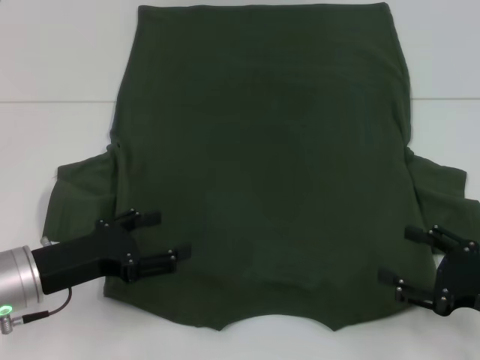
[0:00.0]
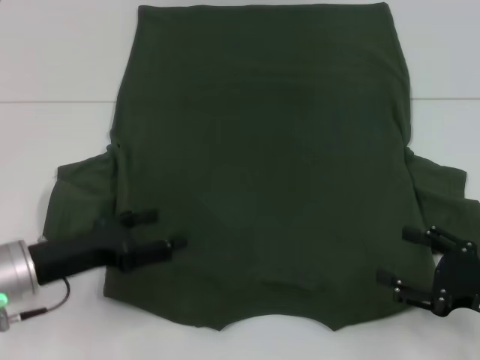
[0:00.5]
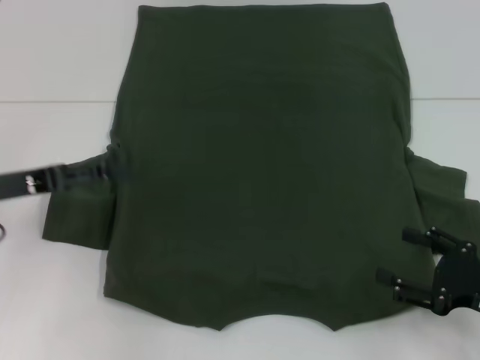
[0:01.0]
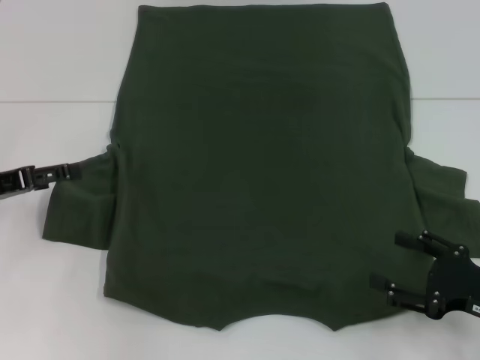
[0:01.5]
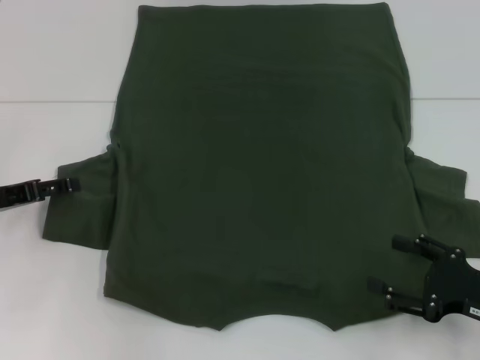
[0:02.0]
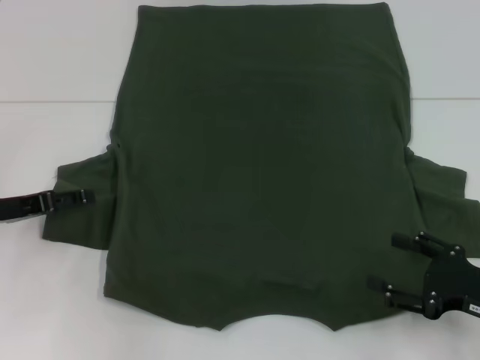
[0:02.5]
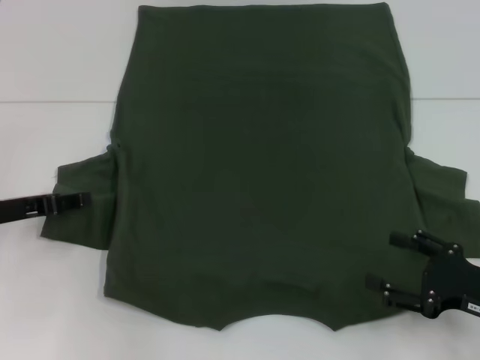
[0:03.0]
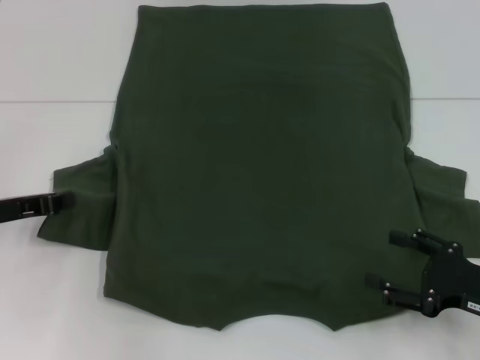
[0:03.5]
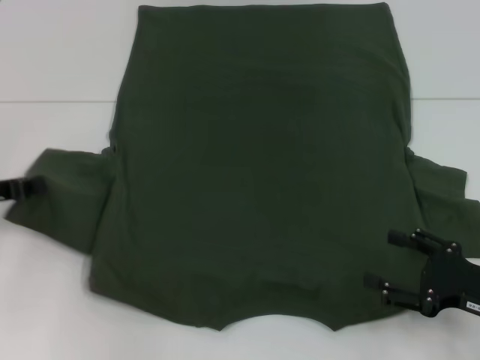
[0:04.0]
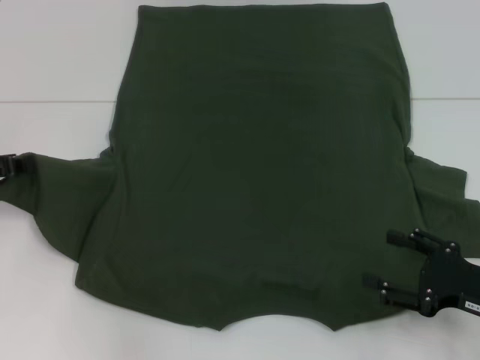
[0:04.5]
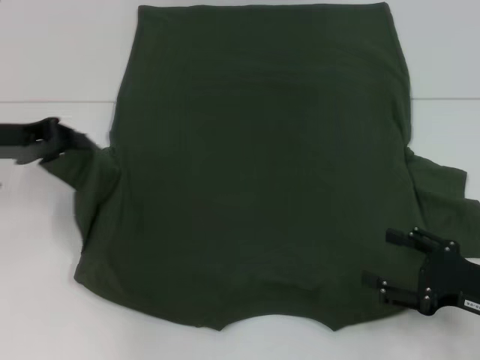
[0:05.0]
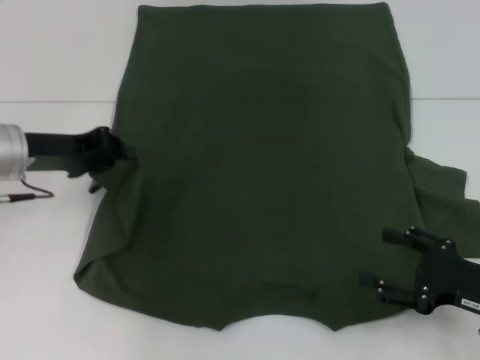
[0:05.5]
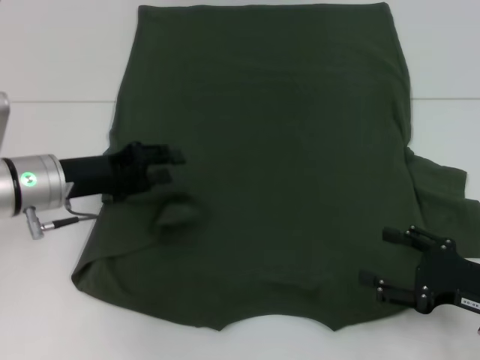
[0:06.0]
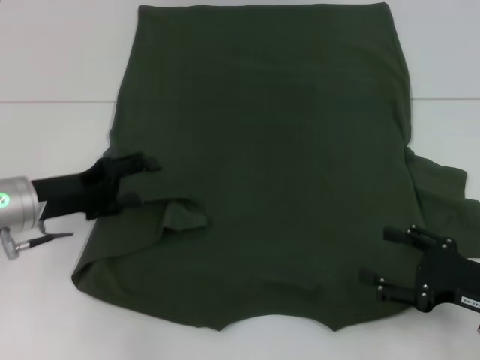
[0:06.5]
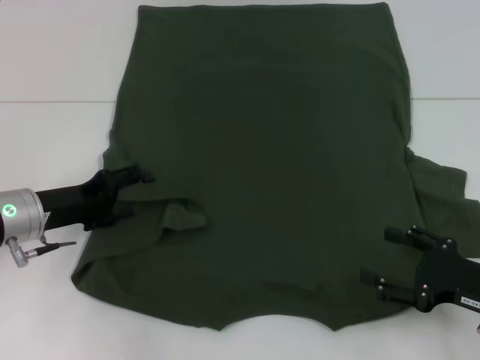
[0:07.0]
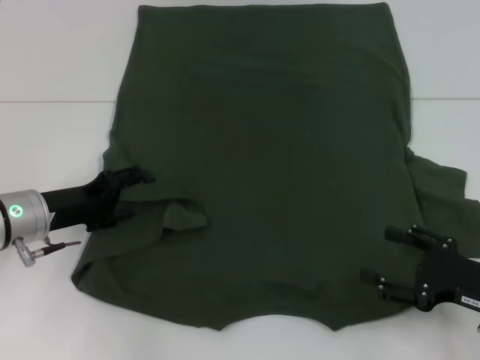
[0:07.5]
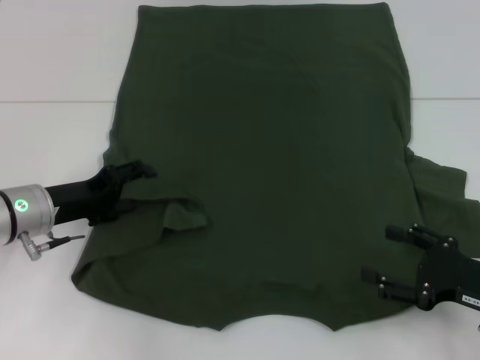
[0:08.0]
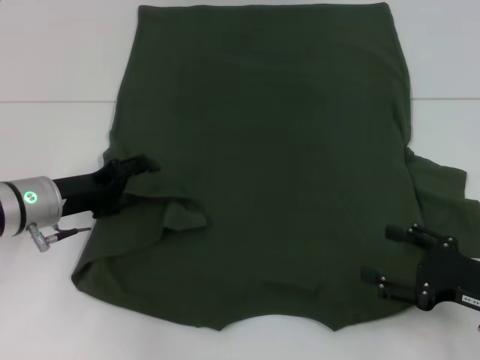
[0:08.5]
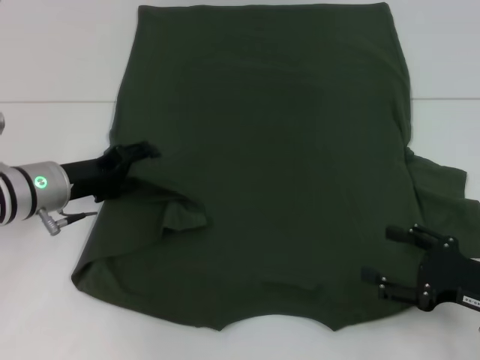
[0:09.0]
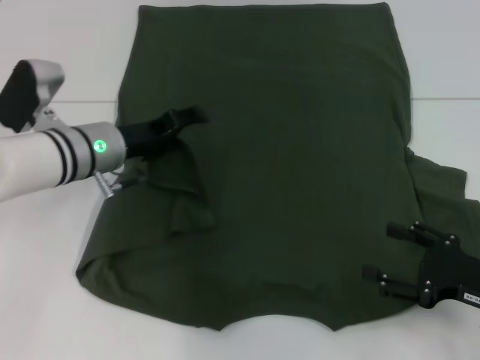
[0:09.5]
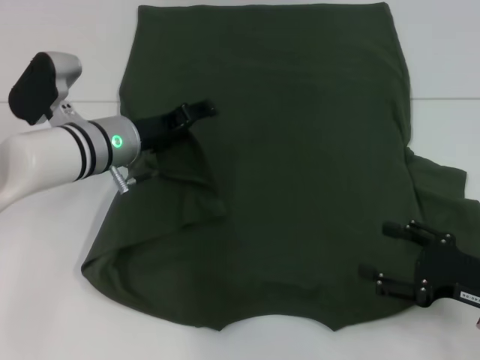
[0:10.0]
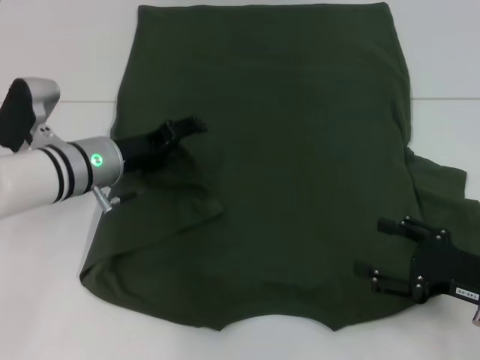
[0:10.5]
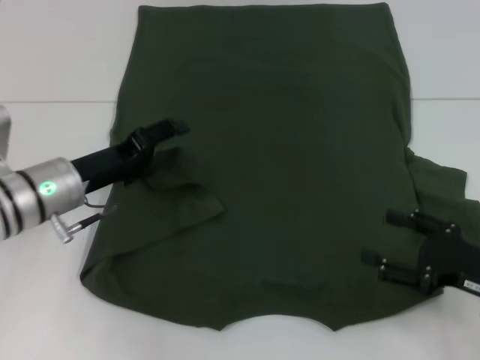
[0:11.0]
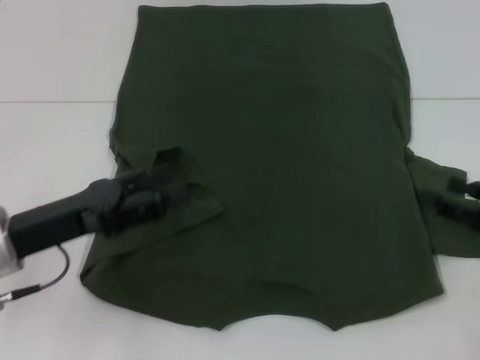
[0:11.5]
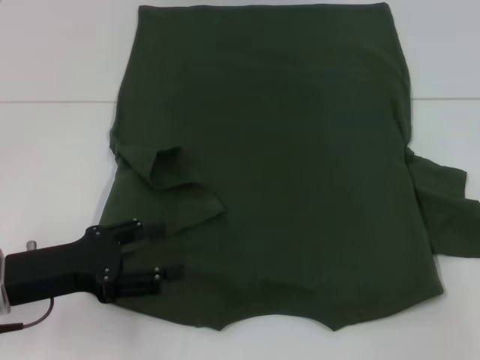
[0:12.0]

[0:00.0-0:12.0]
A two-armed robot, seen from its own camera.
Step, 0:00.0 to 0:11.0: Fold the bottom left sleeve with your left hand.
0:00.0 to 0:02.0: The left gripper shifts about 10 cm to the left and forward.
0:02.0 to 0:04.0: The left gripper closes up.
0:04.0 to 0:06.0: The left gripper is displaced to the right by approximately 10 cm.
0:06.0 to 0:08.0: The left gripper opens.
0:08.0 to 0:10.0: The left gripper shifts some 10 cm to the right and forward.
0:10.0 to 0:12.0: The left gripper heads backward and to the left, covering approximately 20 cm; the right gripper is displaced to the right, upward and forward by some 15 cm.

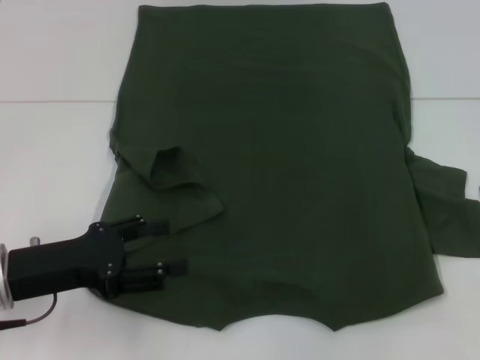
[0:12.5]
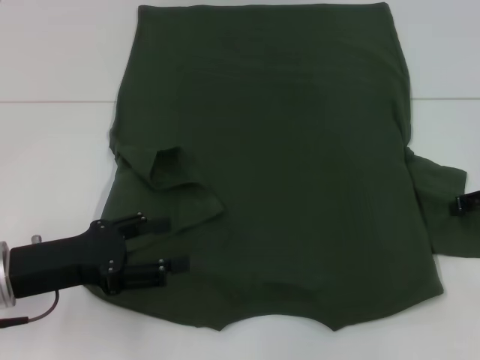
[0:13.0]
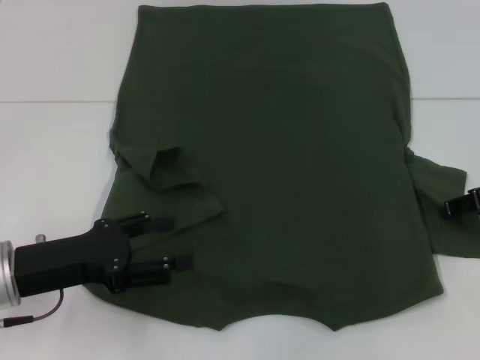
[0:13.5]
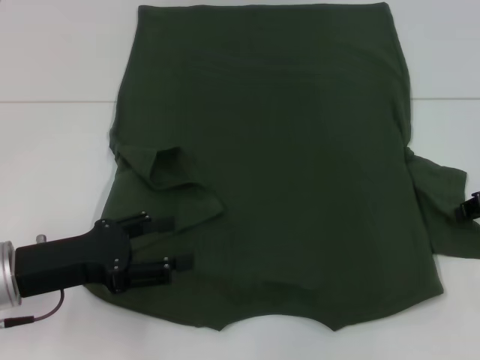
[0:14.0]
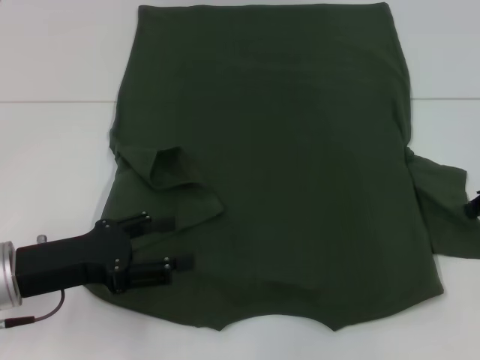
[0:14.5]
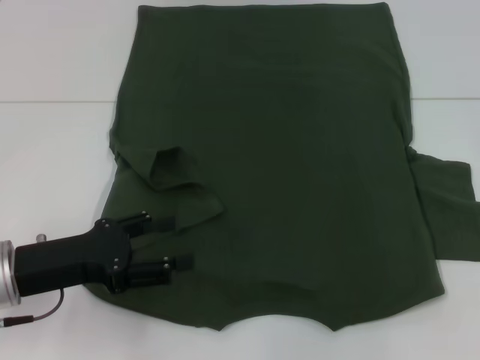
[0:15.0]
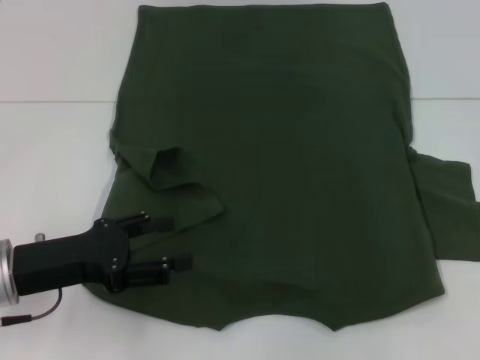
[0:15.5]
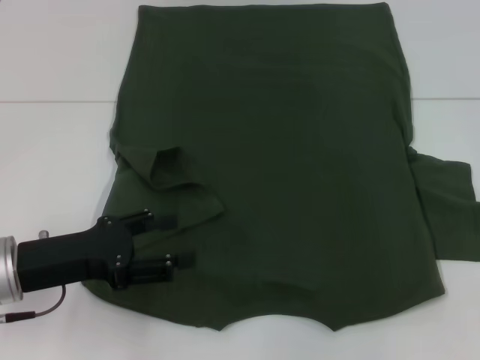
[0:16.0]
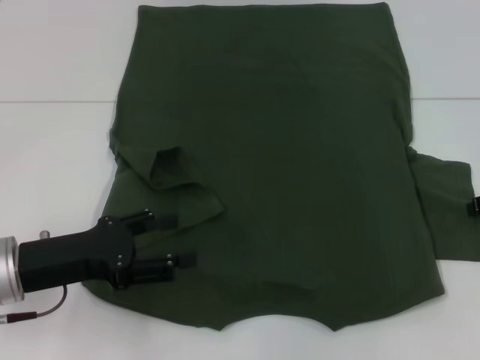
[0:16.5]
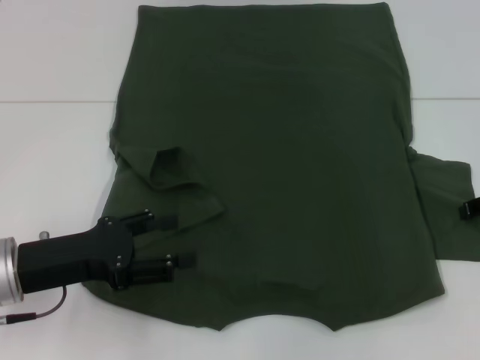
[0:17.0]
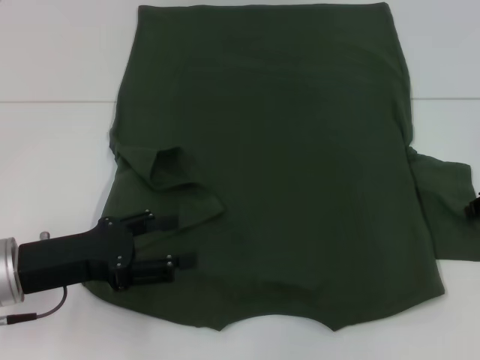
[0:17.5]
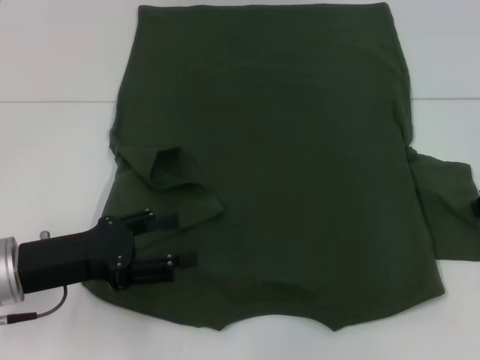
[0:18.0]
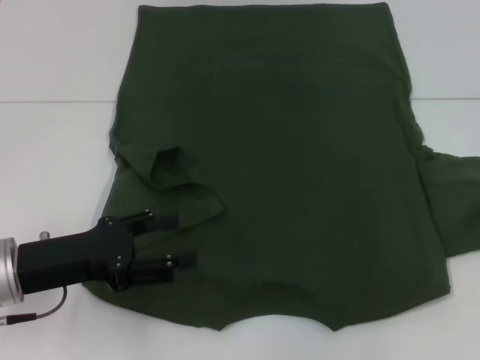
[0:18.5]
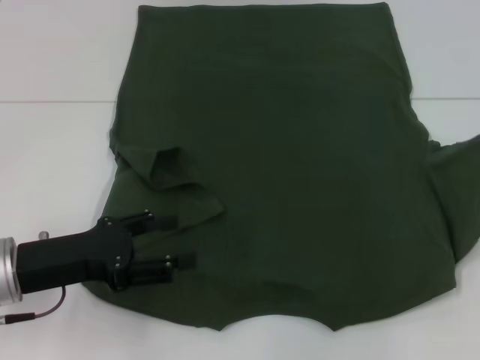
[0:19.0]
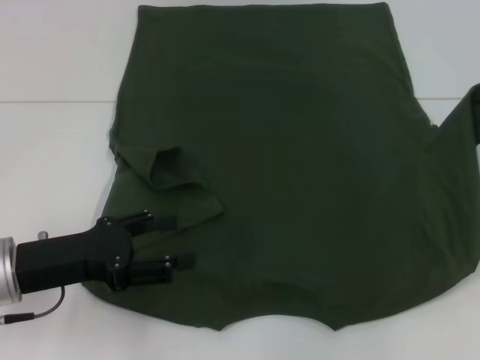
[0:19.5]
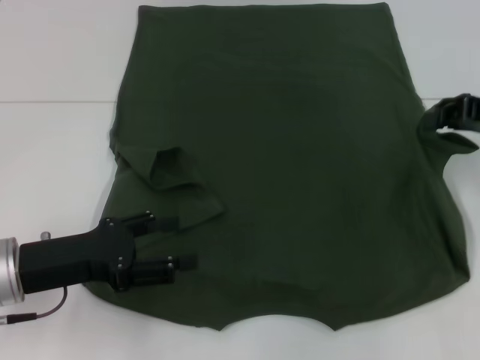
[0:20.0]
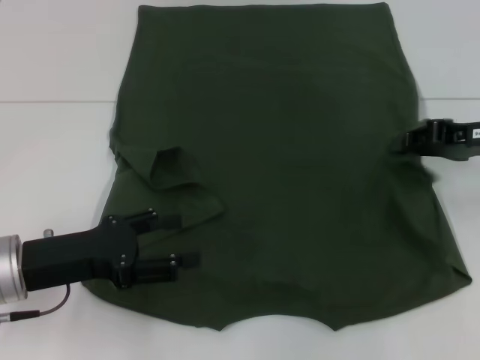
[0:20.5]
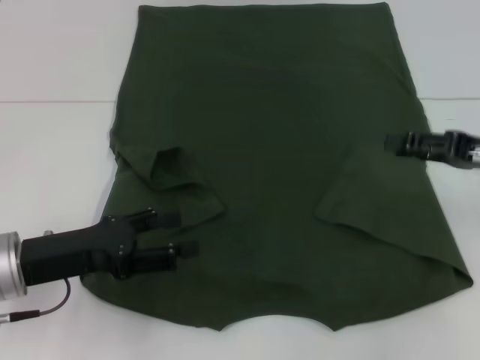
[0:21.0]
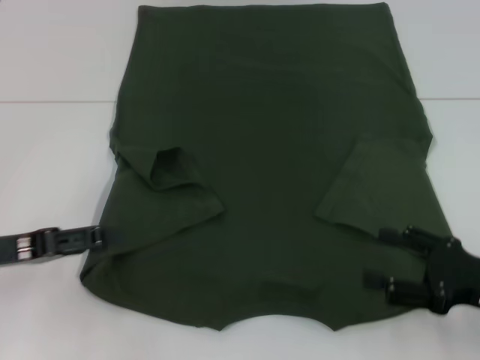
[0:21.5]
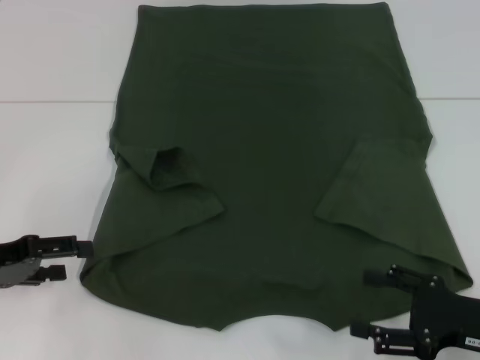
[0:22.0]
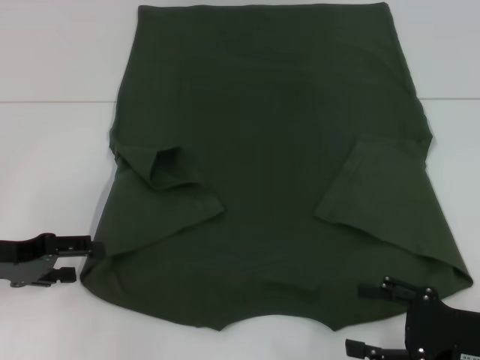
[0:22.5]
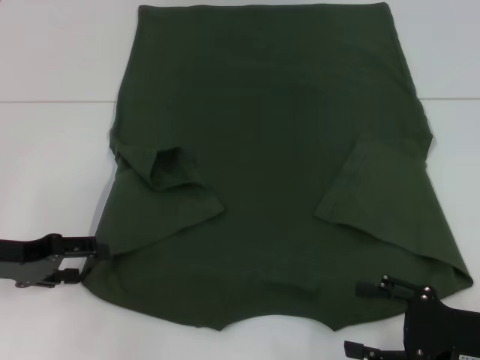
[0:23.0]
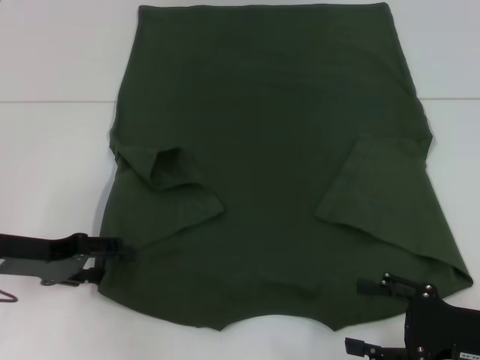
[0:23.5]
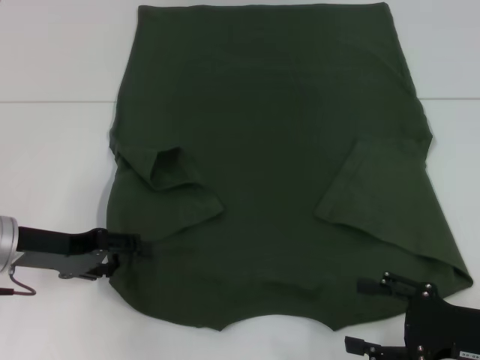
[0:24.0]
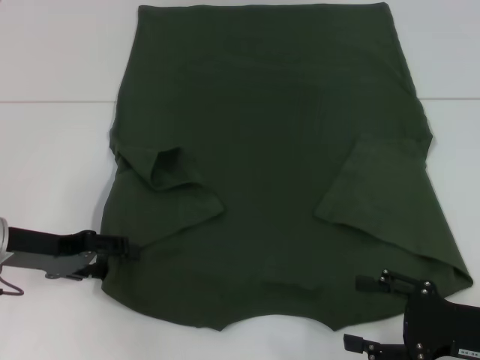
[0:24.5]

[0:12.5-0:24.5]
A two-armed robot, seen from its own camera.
Step, 0:12.5 to 0:21.0: Fold the bottom right sleeve with your right hand.
0:14.5 to 0:16.5: The right gripper opens its fingers.
0:16.5 to 0:18.5: The right gripper closes up.
0:18.5 to 0:20.5: The right gripper travels to the left by approximately 10 cm.
0:20.5 to 0:22.5: The left gripper travels to the left by about 5 cm, while the right gripper goes roughly 20 cm backward and downward, and opens.
0:22.5 to 0:24.5: The grippers make only small movements.

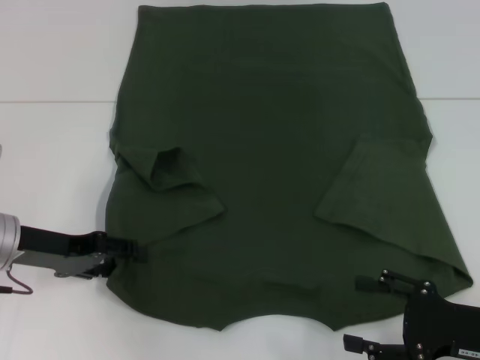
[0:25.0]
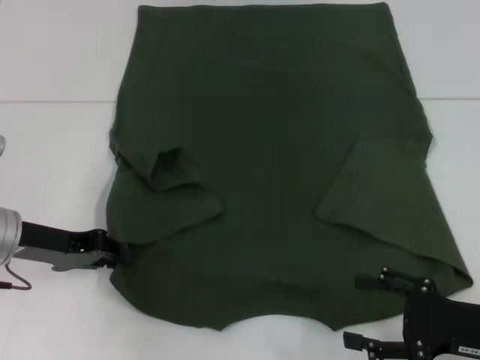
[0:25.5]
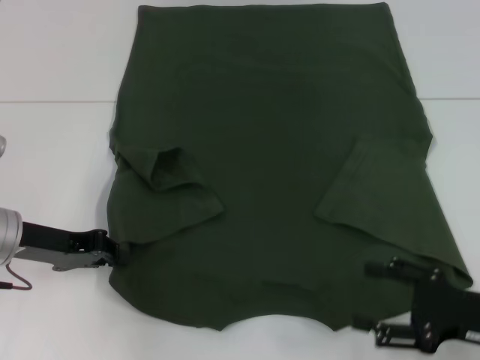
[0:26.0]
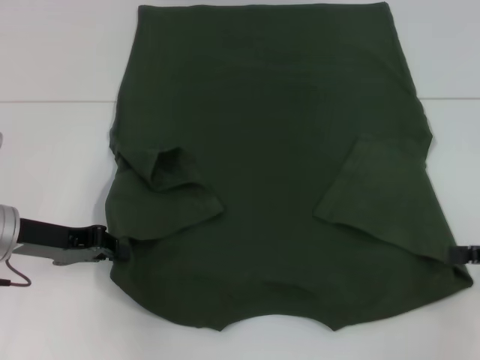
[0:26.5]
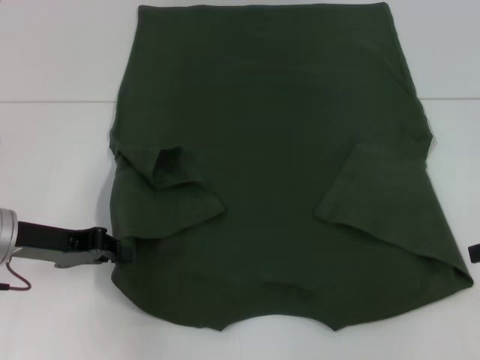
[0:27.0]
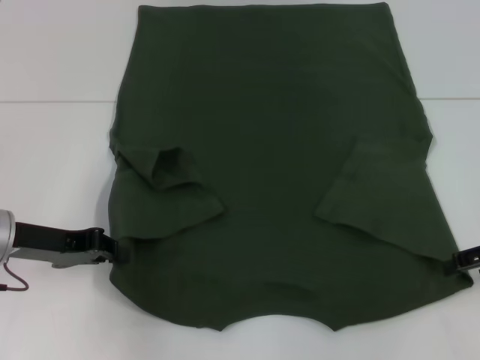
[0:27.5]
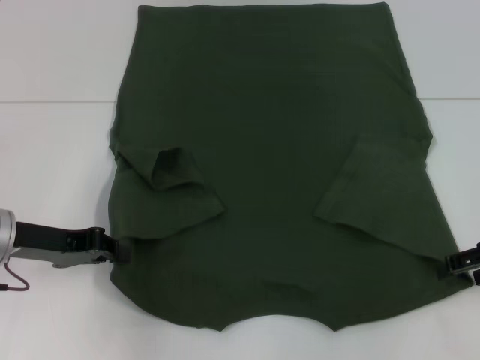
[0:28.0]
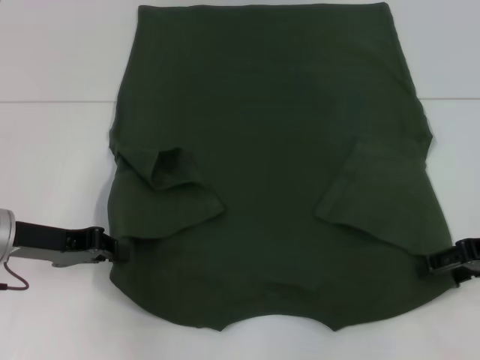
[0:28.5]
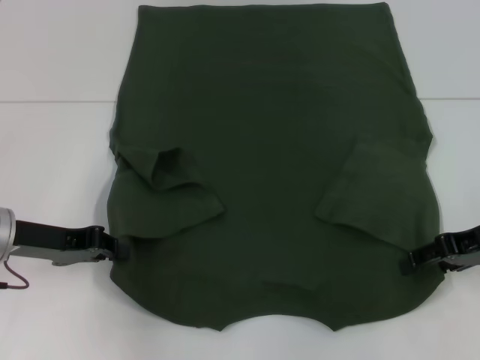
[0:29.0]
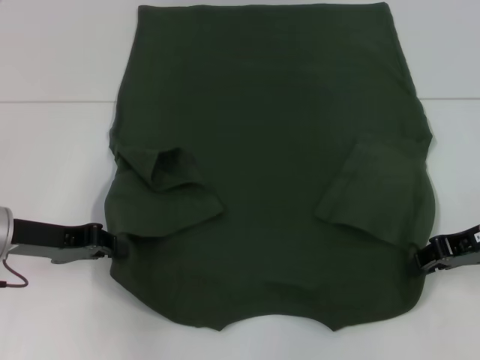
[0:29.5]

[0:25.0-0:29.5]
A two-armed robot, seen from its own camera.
0:25.0 to 0:27.0: The right gripper travels upward, forward and to the right by roughly 15 cm, while the left gripper closes up.
0:27.0 to 0:29.5: The right gripper travels to the left by roughly 5 cm, and closes.
